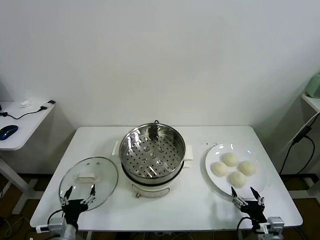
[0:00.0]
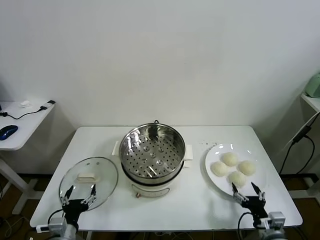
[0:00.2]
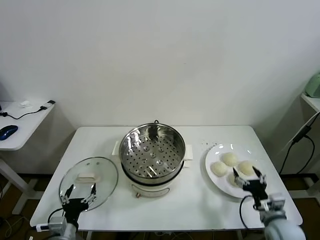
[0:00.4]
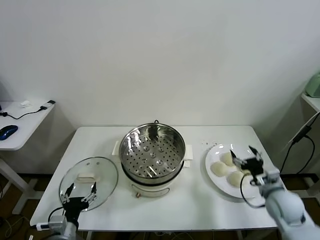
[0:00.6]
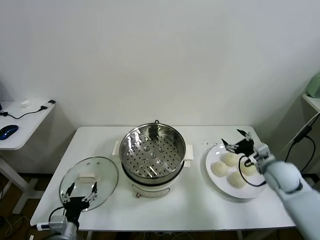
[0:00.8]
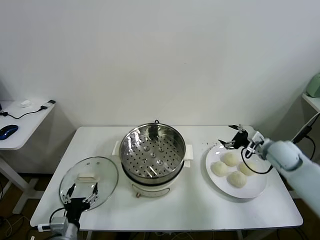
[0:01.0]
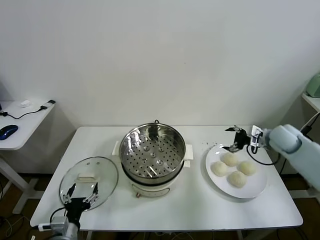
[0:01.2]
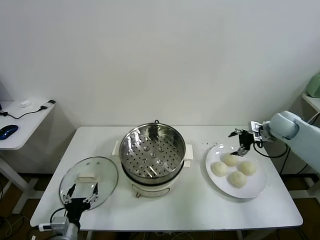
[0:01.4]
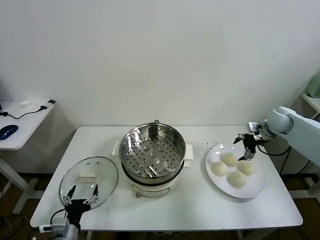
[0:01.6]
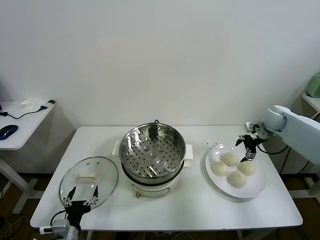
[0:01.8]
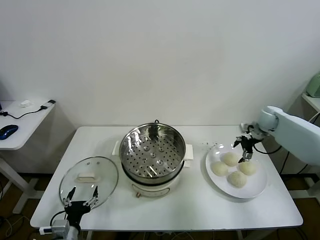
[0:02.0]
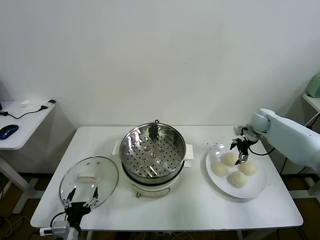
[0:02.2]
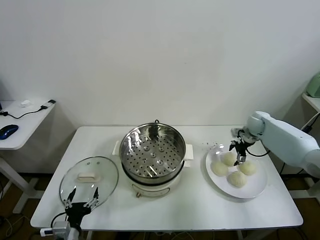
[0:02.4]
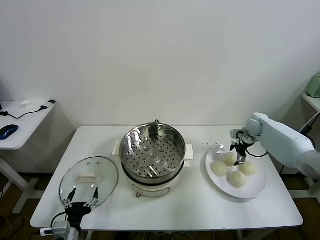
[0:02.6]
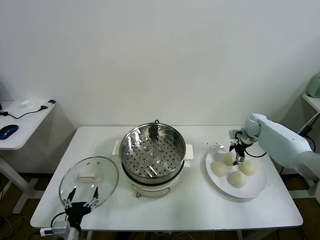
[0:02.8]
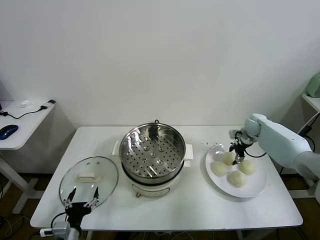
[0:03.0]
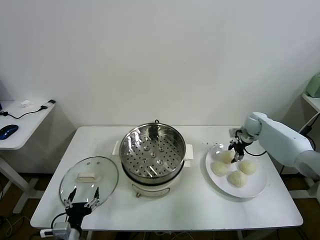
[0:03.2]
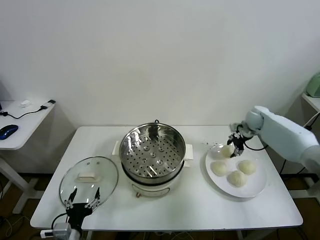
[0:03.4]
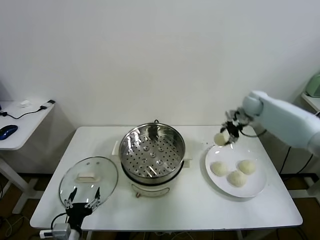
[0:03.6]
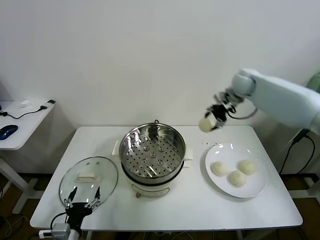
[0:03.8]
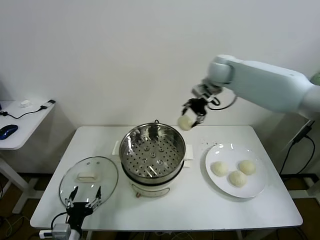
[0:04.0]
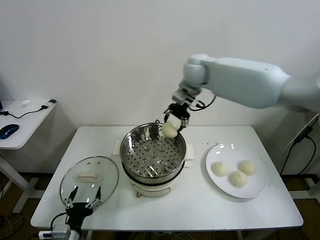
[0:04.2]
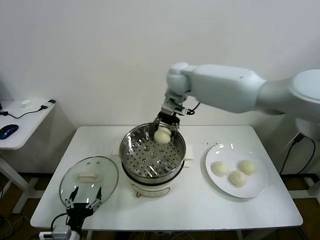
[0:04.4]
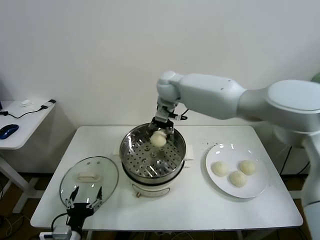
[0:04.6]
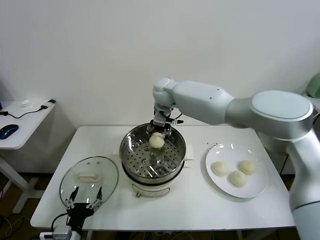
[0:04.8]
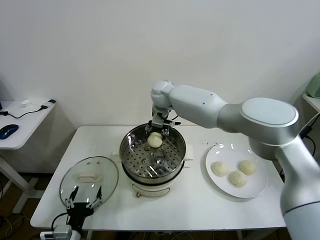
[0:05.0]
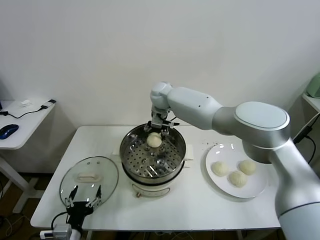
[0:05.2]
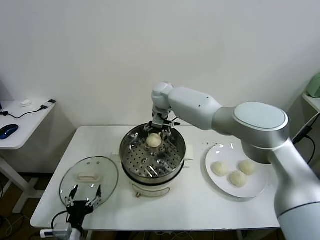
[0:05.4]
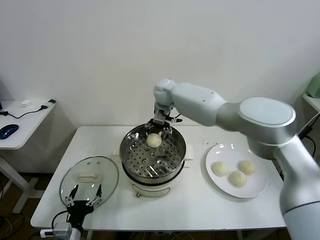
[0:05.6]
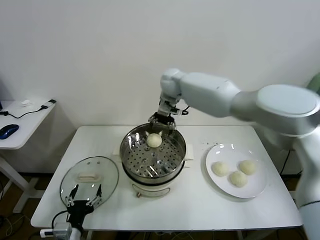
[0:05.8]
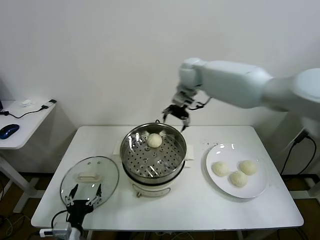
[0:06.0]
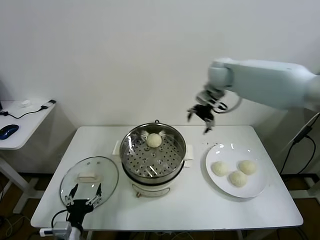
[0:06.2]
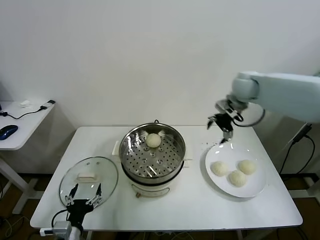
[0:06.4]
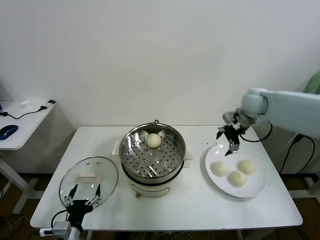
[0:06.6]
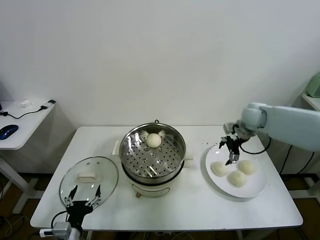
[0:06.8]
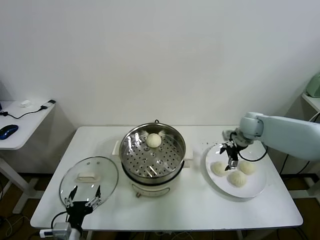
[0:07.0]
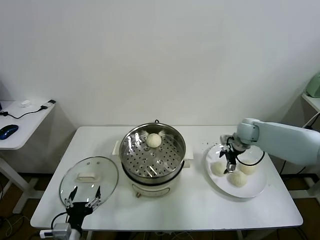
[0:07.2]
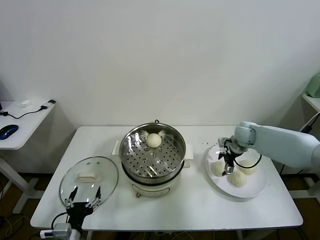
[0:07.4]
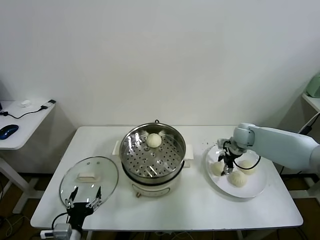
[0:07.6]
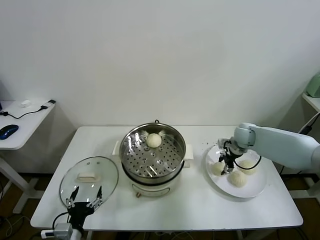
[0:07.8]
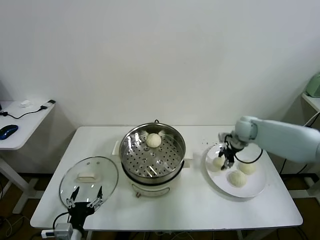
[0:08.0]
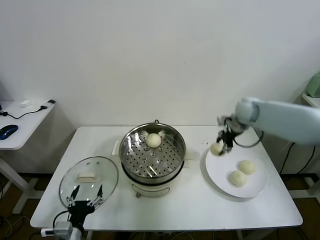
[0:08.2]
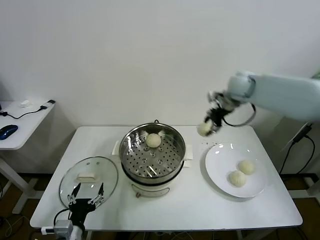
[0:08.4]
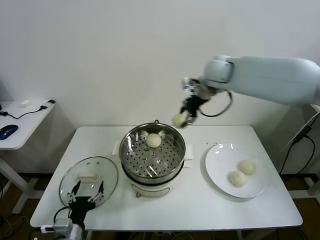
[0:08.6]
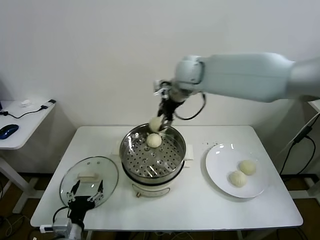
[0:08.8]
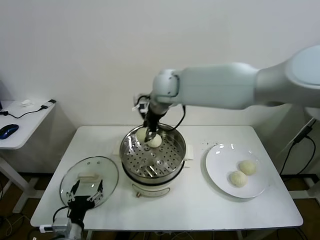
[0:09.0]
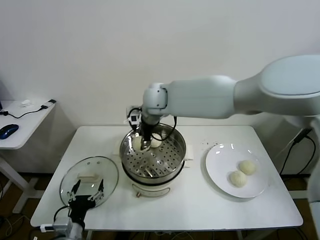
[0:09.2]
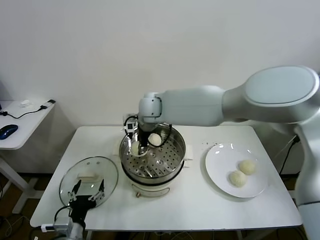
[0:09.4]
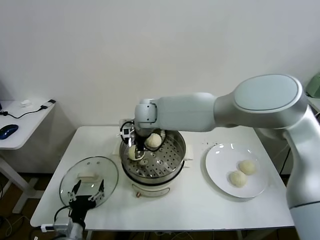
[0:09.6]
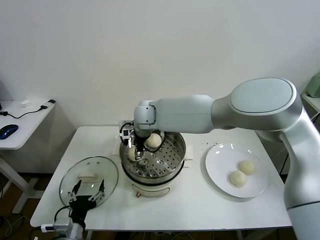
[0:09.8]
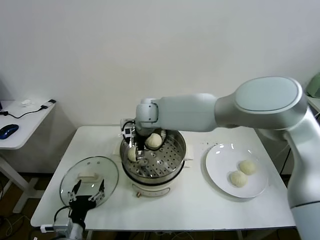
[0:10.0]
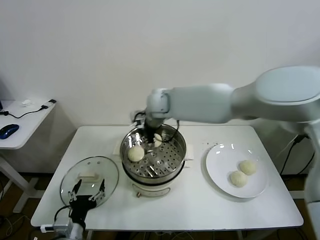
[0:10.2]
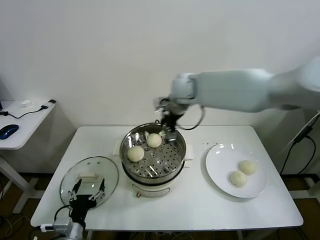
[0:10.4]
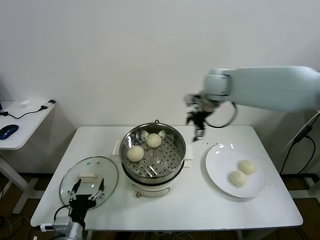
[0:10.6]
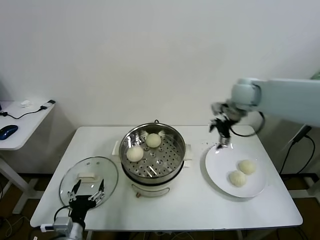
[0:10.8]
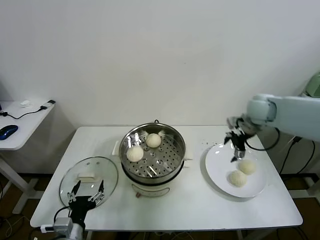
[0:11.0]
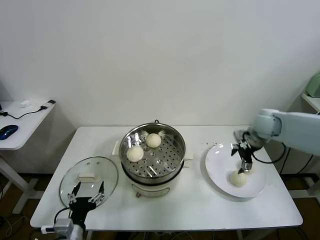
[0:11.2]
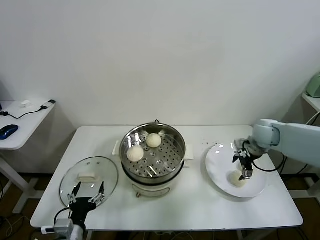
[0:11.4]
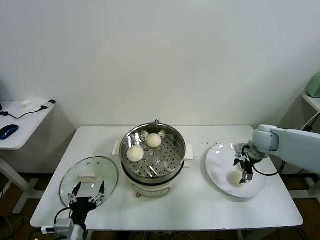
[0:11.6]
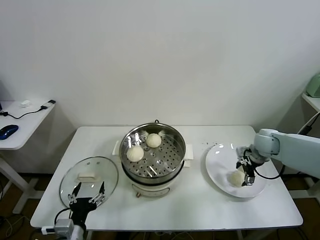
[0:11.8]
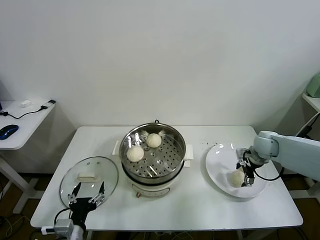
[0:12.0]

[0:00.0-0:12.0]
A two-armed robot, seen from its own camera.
Task of the whole recording: take steamed baozi put them in steamer.
Step, 0:00.0 to 0:03.0: Grasp the baozi in the plate with right gripper.
Step, 0:03.2 to 0:05.2: Place the baozi on the steamer with right gripper.
Step, 0:05.4 to 0:07.8: Grasp the baozi in the plate with right gripper.
Step, 0:08.0 to 0:10.0: Place the baozi on the steamer with right gripper.
0:01.6 to 0:03.0: The right gripper travels downward and forward by approximately 10 cm, and closes its fingers.
0:03.0 to 0:04.4: The right gripper is displaced to the left and upward by some 40 cm.
0:04.4 to 0:06.0: The right gripper moves to the right, roughly 10 cm, and opens up.
0:06.0 to 0:07.6: The right gripper goes some 30 cm downward and to the right, and closes up.
0:07.6 to 0:09.0: The right gripper is displaced to the left and upward by approximately 40 cm.
0:09.0 to 0:10.4: The right gripper heads to the right, covering some 10 cm, and opens.
0:10.4 to 0:12.0: The right gripper travels to the right and downward by approximately 35 cm.

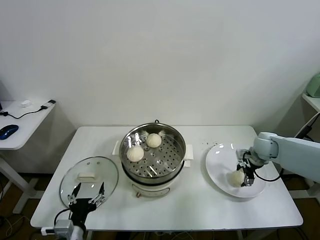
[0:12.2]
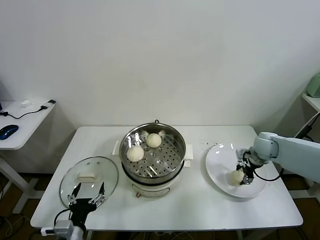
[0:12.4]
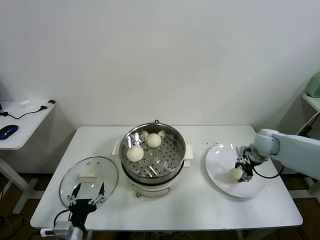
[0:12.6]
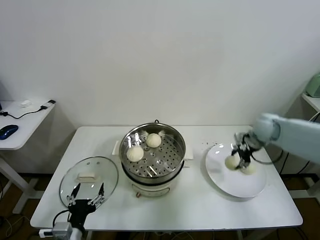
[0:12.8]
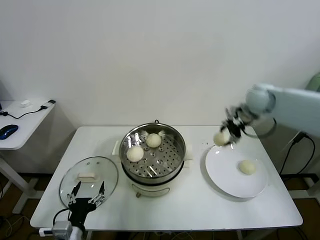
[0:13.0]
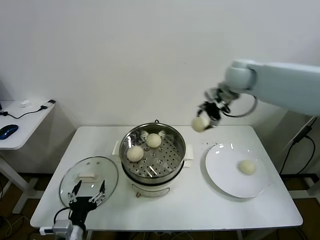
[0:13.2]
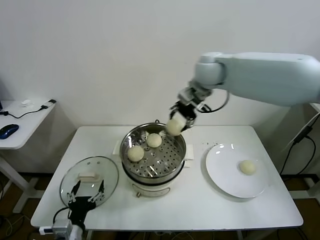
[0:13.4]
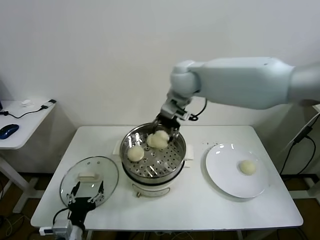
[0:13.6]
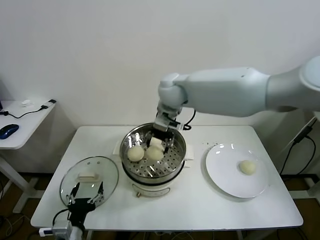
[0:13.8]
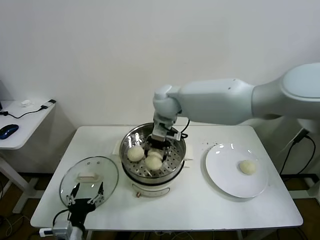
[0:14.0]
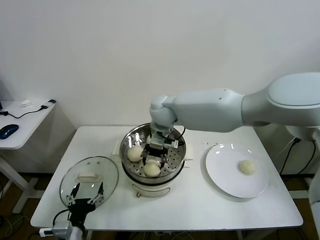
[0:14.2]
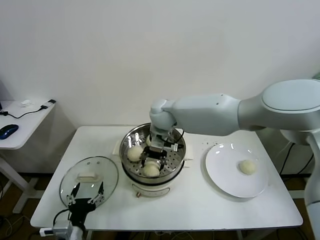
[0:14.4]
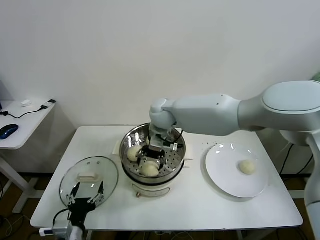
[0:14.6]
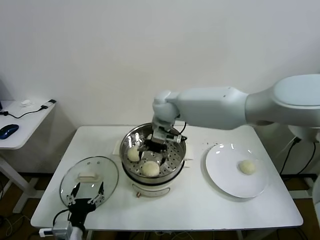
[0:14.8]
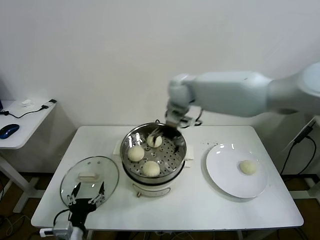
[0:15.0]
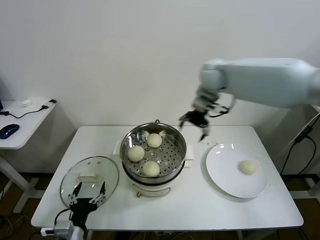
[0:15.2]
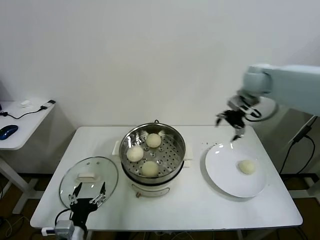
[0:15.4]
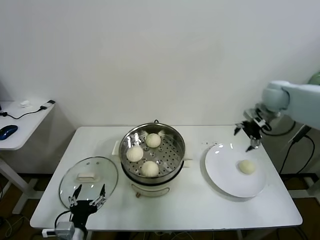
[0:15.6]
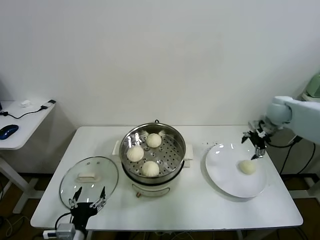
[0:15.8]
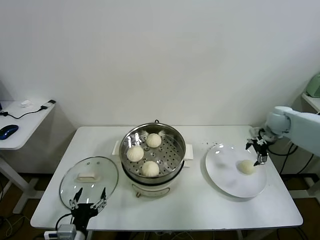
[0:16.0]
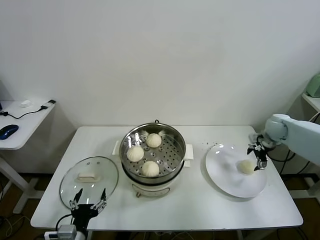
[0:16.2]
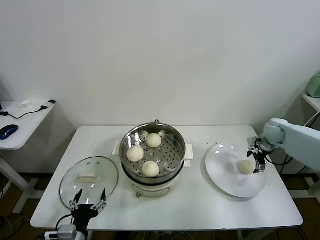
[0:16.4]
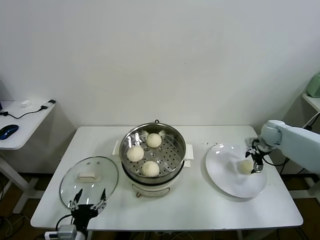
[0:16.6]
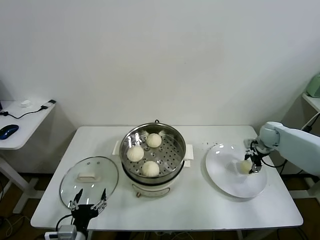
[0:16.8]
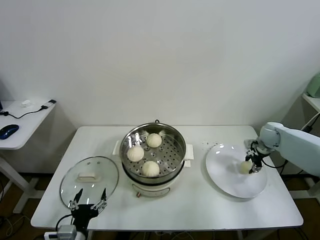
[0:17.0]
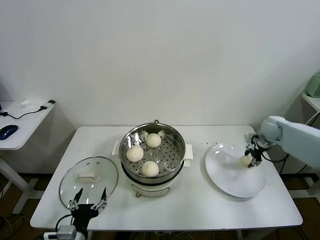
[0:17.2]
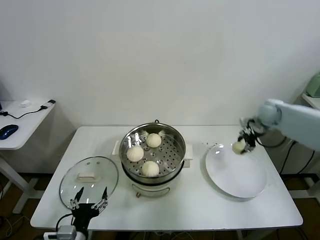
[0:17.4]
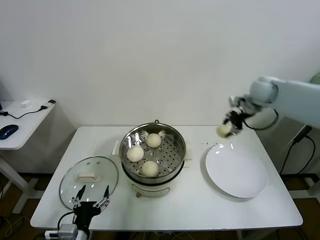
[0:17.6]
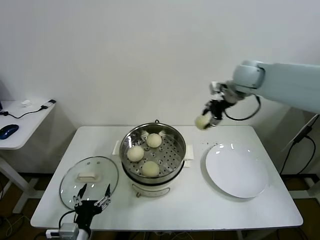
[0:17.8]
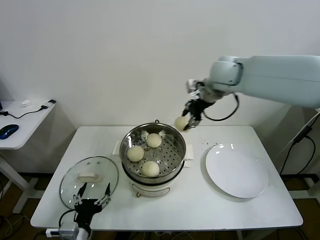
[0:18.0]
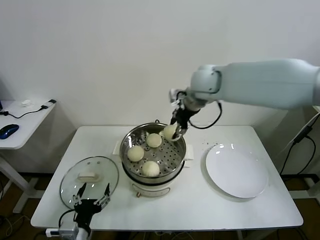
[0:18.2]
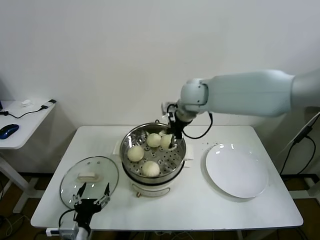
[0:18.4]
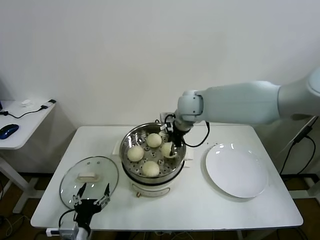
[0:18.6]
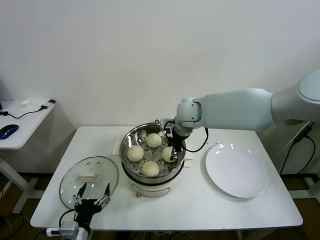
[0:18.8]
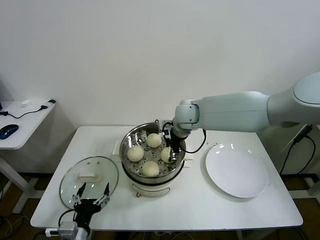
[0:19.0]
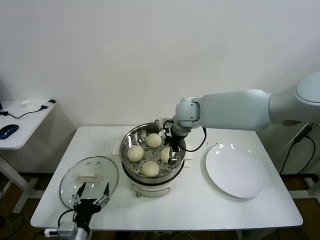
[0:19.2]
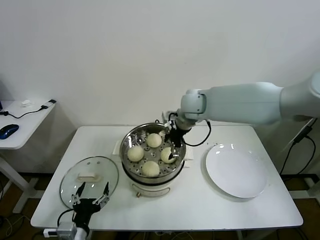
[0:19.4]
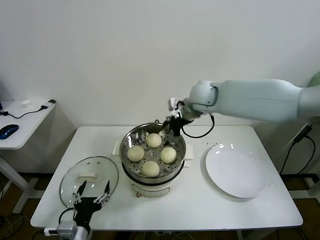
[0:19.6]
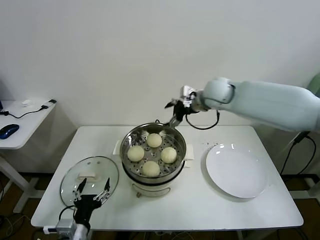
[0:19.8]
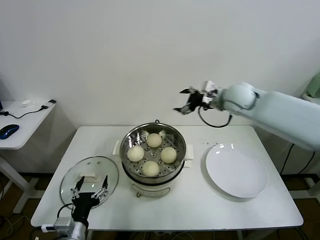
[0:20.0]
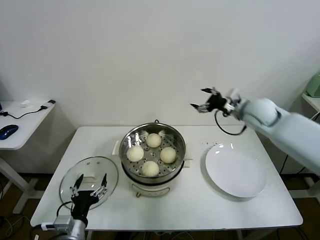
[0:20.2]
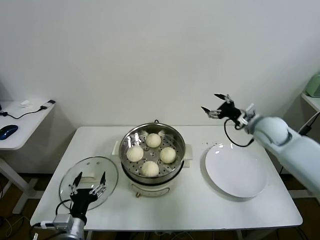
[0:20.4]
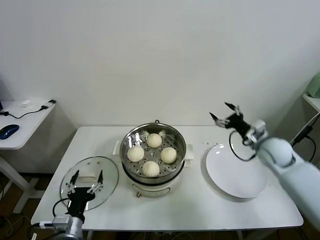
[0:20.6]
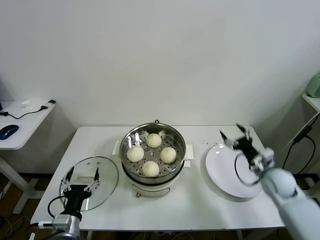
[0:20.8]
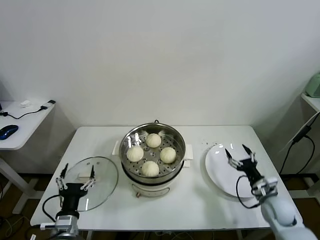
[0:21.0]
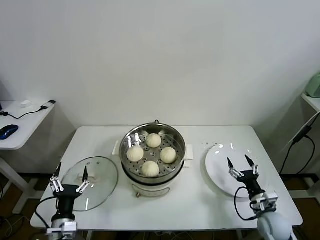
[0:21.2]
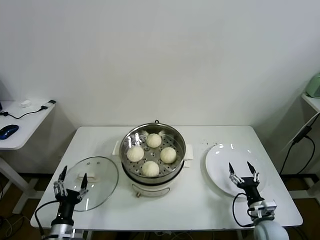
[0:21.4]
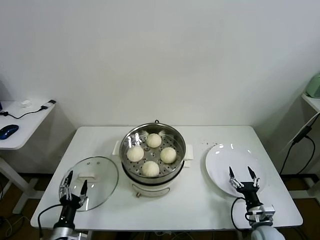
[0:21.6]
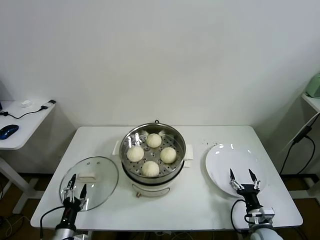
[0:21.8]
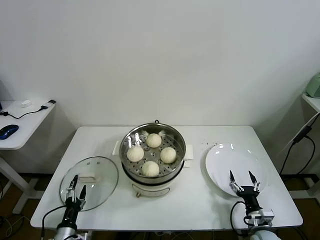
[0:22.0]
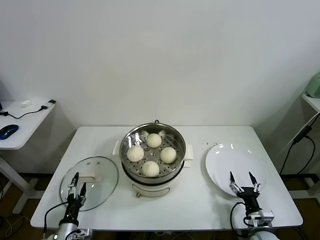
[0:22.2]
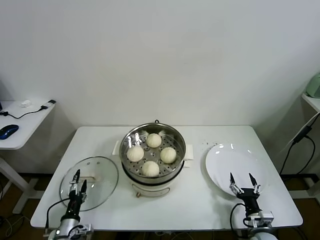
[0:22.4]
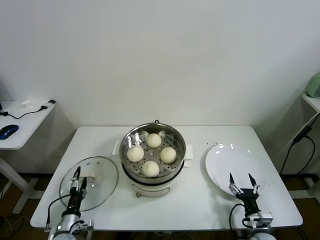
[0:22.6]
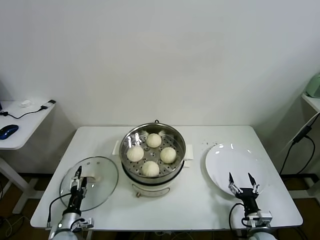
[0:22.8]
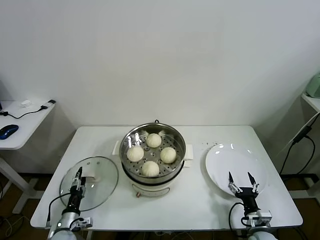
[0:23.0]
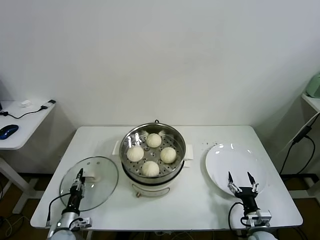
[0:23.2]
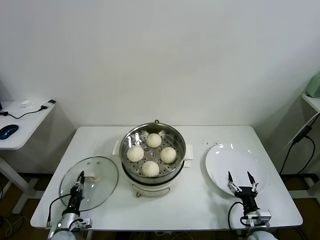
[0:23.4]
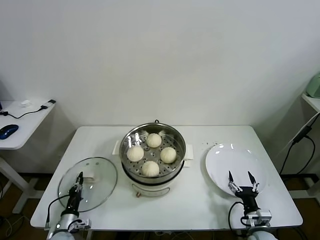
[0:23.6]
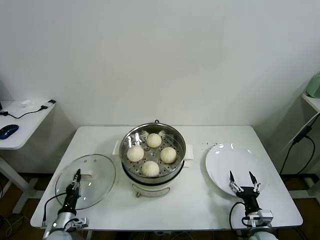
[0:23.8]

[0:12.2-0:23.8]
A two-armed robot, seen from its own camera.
Task of the whole recording: take steamed baozi put them in steamer.
Step, 0:12.4 to 0:14.6: Place the baozi on the steamer with right gripper.
Step, 0:14.8 to 0:16.8: Grasp the baozi in the plate with right gripper.
Step, 0:17.0 to 0:19.0: Place the baozi on the steamer with right gripper.
Step, 0:19.2 to 0:23.4: Grasp the pot lid with left gripper.
0:12.2 to 0:13.6: The right gripper goes some 40 cm to the left and upward.
0:13.6 to 0:15.0: The right gripper travels downward and back again, some 10 cm each way, and opens.
0:15.0 to 0:16.6: The right gripper travels to the right and downward by some 40 cm.
0:16.6 to 0:18.0: The right gripper heads to the left and upward, covering roughly 35 cm, and closes its fingers.
0:18.0 to 0:19.4: The right gripper shifts approximately 15 cm downward and to the left, and opens up.
0:19.4 to 0:21.0: The right gripper heads downward, to the right and backward, covering roughly 50 cm.
0:21.0 to 0:22.4: The right gripper travels backward, downward and to the left by some 15 cm. The left gripper travels downward and to the left by some 15 cm.
0:22.4 to 0:23.8: The left gripper closes its fingers.
